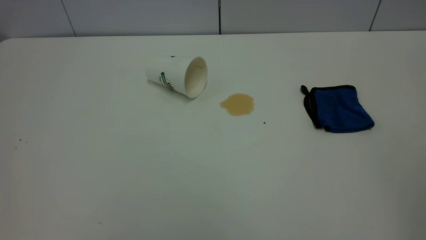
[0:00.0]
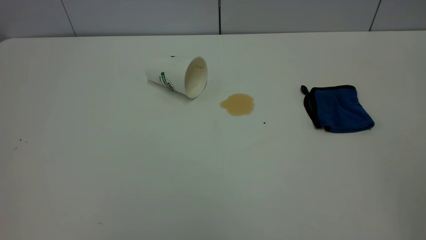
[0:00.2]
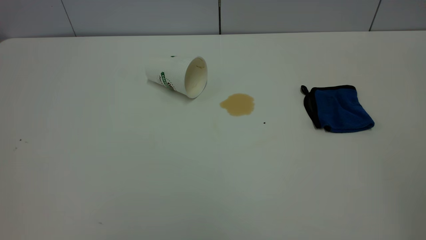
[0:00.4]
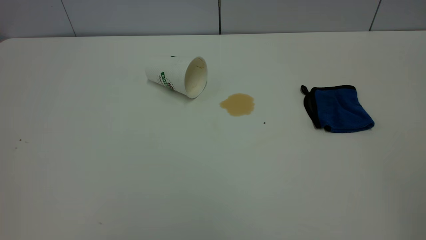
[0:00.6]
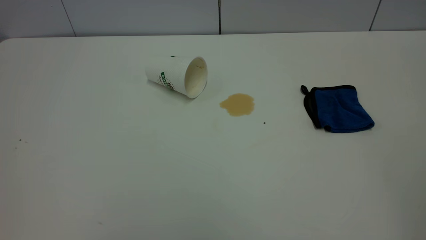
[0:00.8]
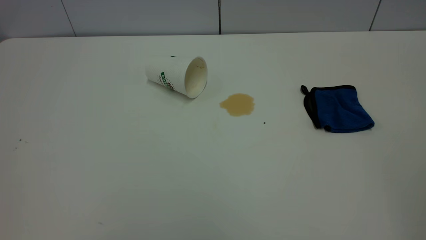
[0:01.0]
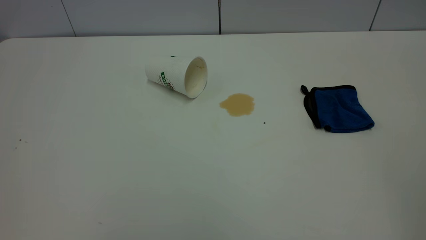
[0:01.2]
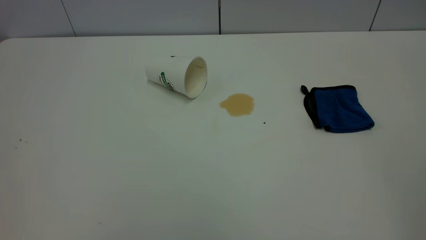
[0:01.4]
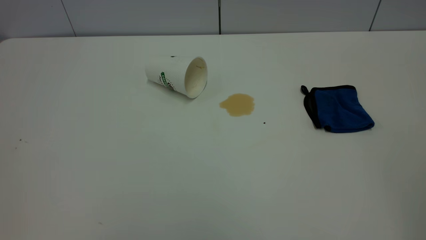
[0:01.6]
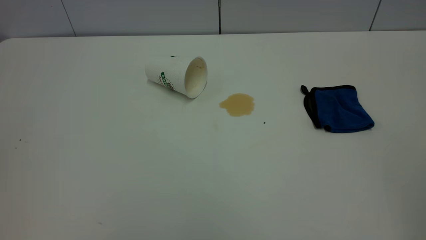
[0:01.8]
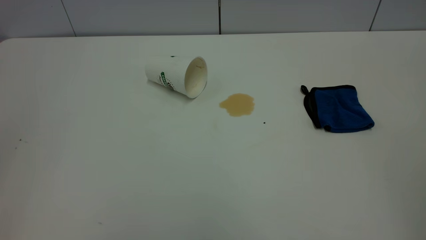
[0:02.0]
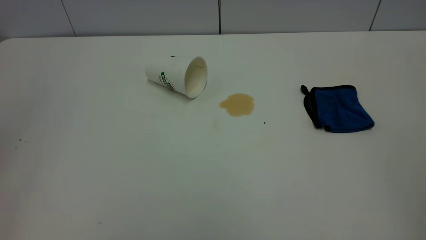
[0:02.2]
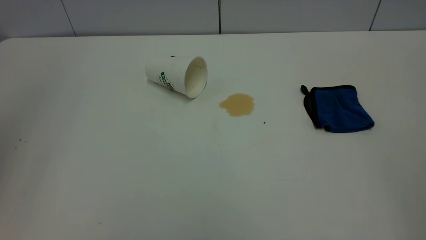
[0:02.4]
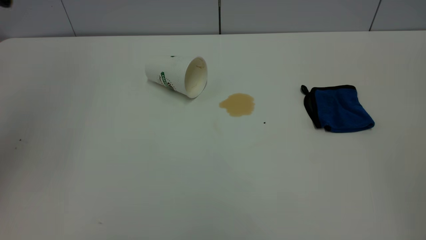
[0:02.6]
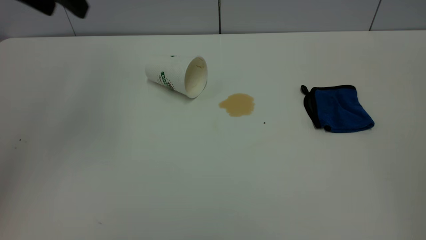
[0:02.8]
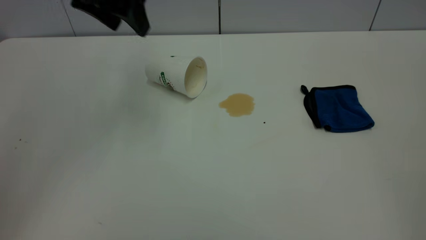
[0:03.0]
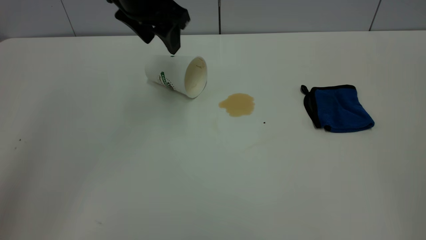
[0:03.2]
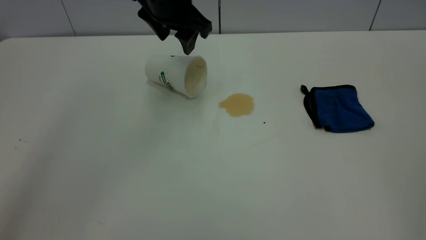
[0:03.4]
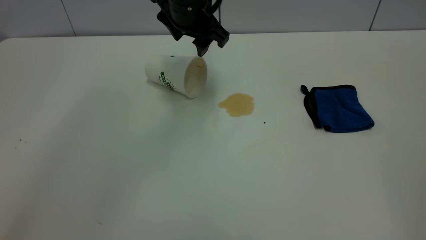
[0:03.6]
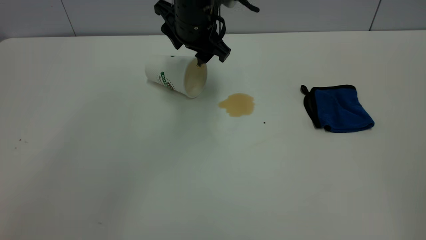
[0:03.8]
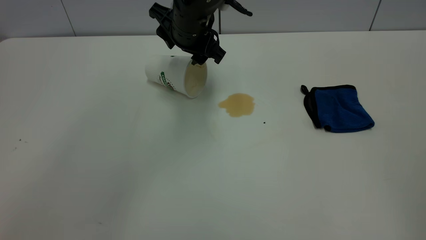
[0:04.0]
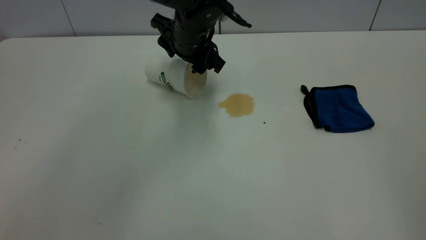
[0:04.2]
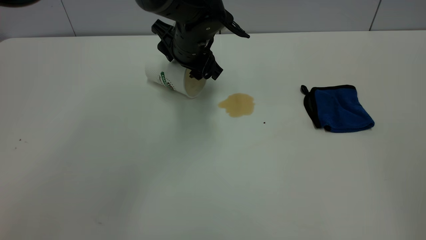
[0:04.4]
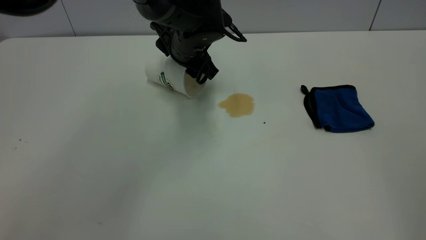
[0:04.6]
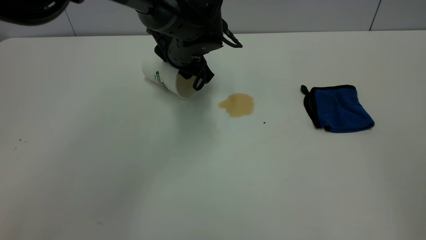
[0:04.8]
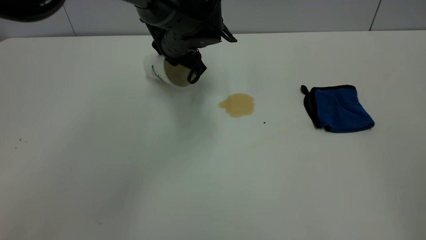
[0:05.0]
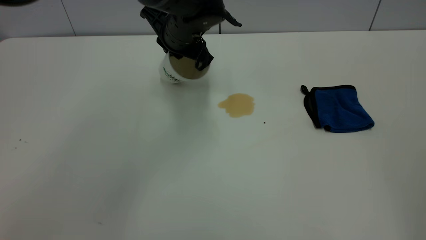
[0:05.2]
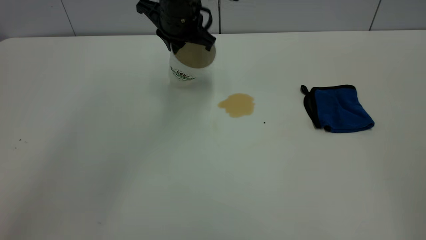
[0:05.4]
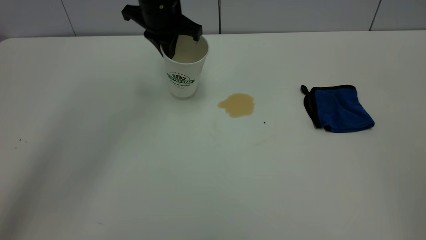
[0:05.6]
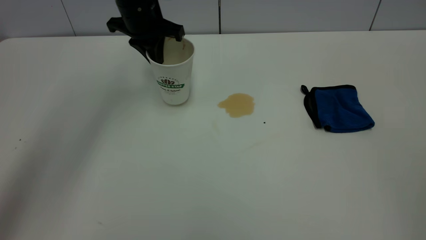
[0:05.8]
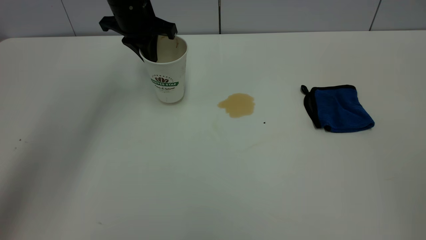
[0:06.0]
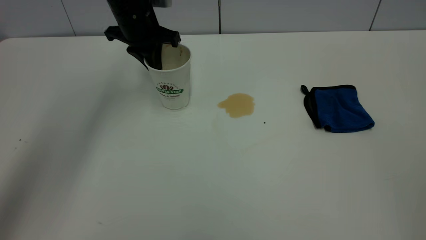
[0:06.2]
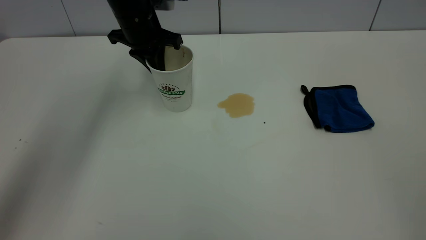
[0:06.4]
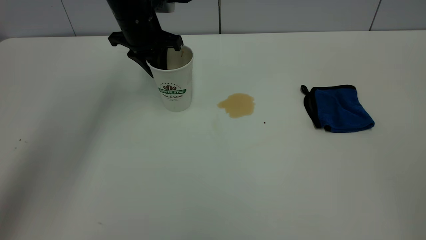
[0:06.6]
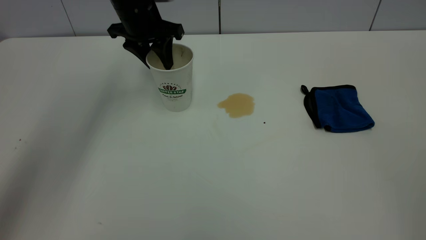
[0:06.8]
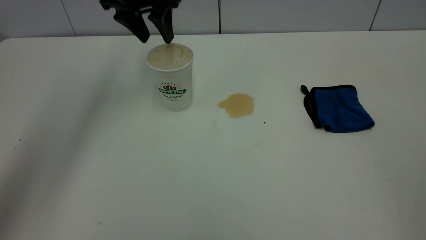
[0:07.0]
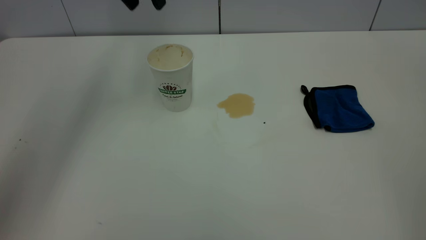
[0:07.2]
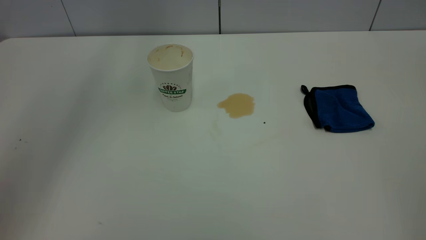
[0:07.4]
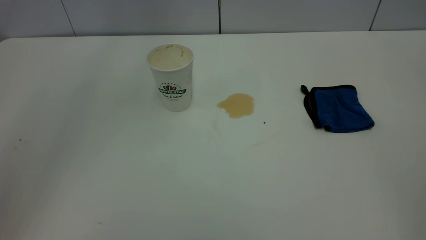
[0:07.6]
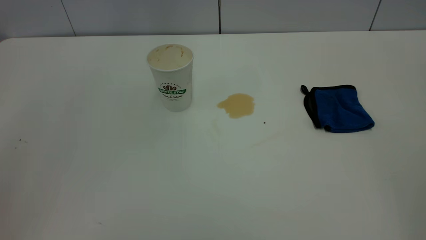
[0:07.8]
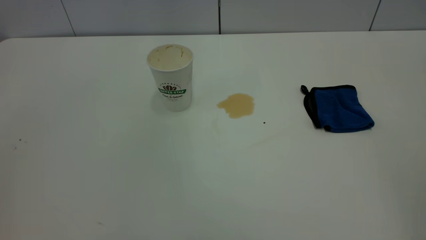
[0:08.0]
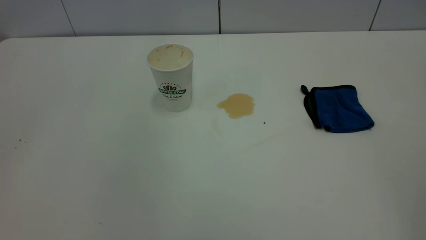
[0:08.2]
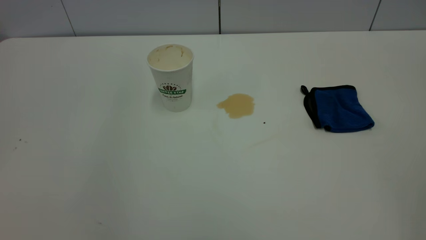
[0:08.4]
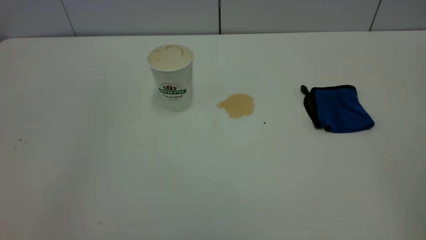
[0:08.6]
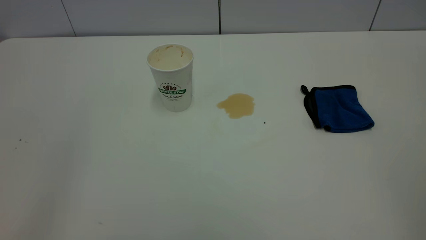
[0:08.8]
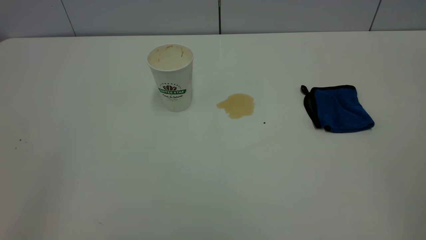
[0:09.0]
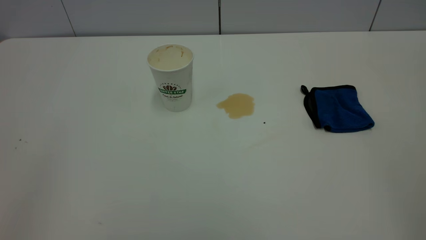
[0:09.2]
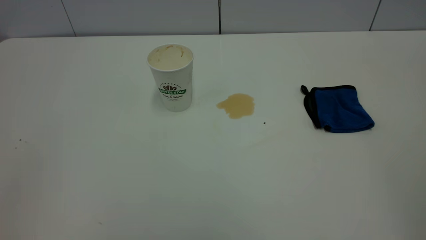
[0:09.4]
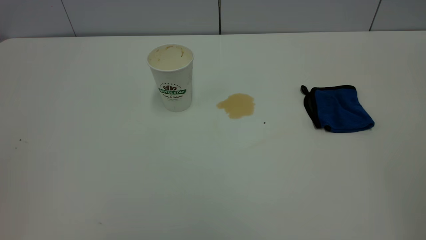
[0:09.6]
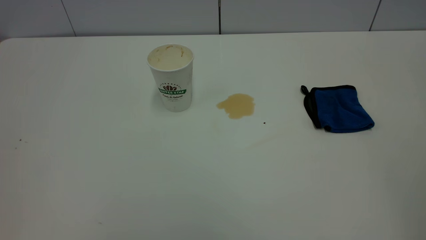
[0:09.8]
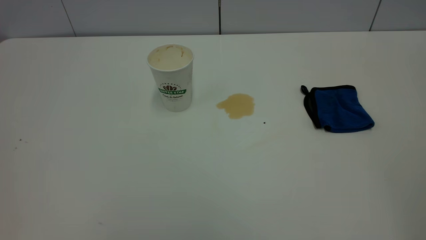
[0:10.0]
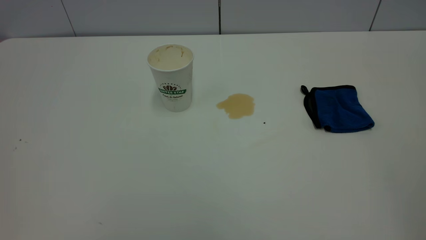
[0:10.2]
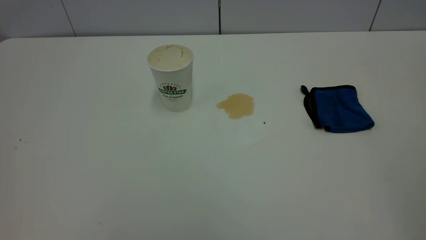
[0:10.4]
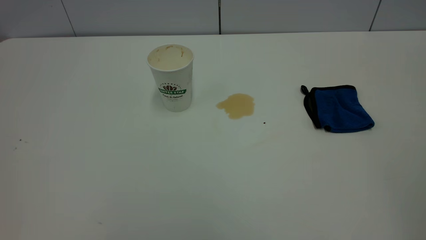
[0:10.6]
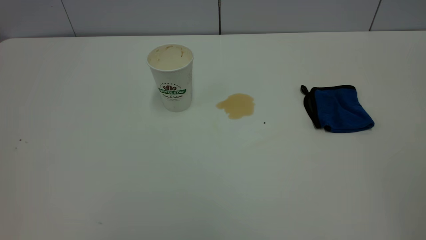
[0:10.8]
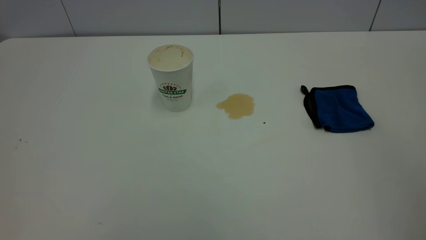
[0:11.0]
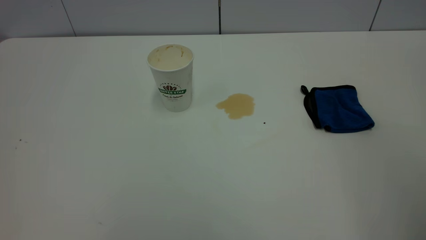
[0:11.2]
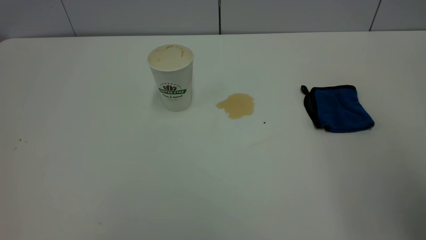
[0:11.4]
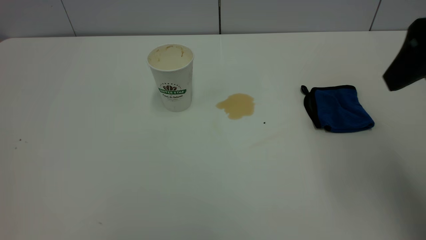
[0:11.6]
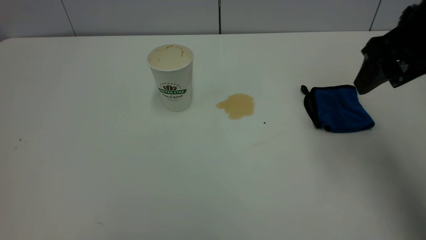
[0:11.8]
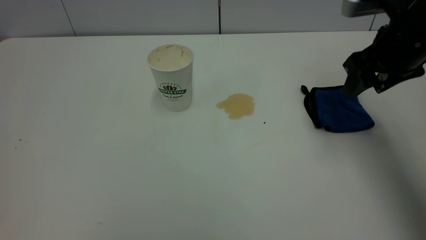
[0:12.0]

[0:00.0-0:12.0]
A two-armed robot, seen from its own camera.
Task of the whole recording: the left gripper pick up the fallen cup and place it upright, the right gripper grasp the blue rag and wipe the tea stain on the table, the right gripper put the blue rag back in its original position.
Step, 0:00.0 to 0:06.8: Stand the paper cup upright.
0:00.0 to 0:01.6: The two grippers keep their place.
0:01.6 to 0:03.0: The left gripper is displaced forward by about 40 cm.
0:03.0 to 0:04.4: The left gripper goes some 20 cm downward and to the right.
0:04.4 to 0:06.0: The left gripper moves to the left, forward and upward, about 15 cm, and closes its fingers.
0:06.0 to 0:07.6: The left gripper goes some 30 cm upward, and opens its fingers.
0:10.4 to 0:12.0: The right gripper goes about 40 cm forward and downward.

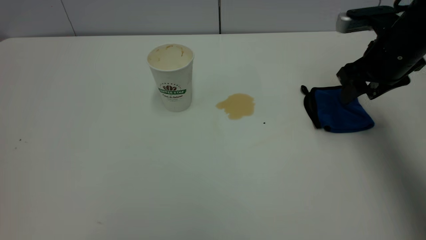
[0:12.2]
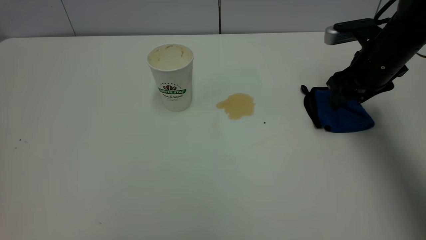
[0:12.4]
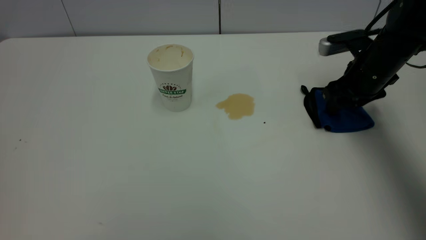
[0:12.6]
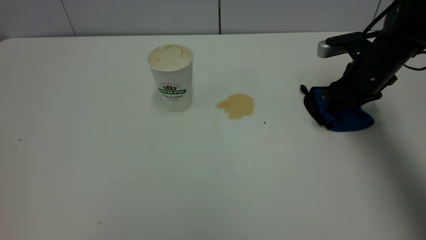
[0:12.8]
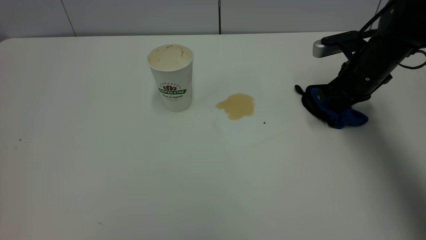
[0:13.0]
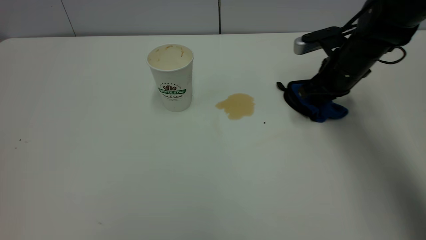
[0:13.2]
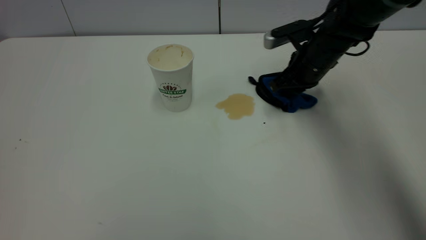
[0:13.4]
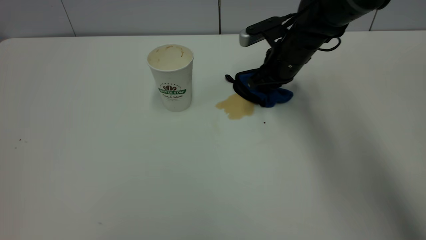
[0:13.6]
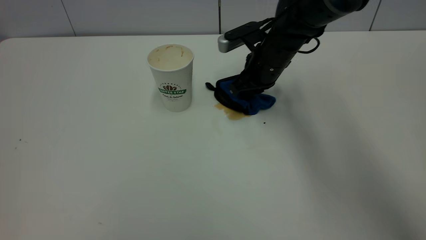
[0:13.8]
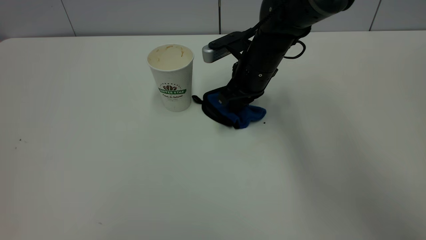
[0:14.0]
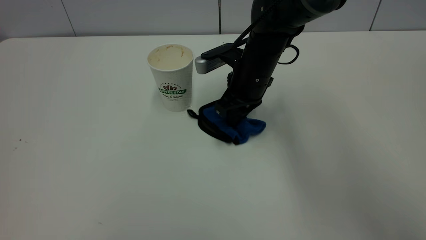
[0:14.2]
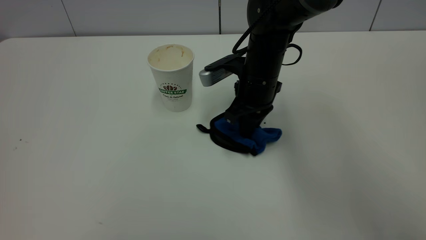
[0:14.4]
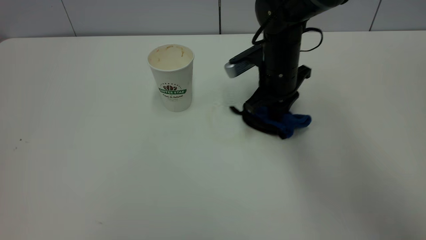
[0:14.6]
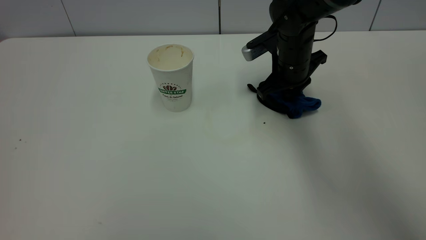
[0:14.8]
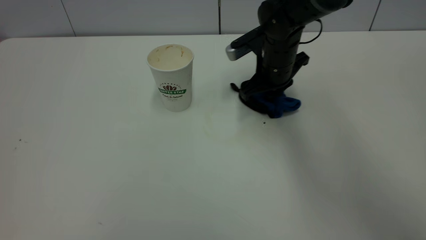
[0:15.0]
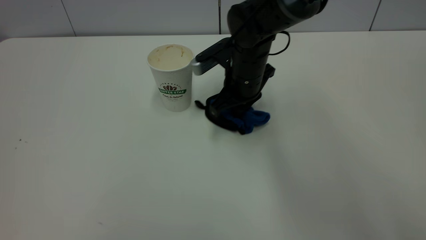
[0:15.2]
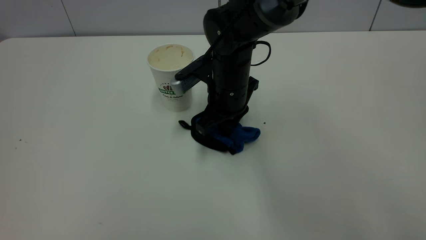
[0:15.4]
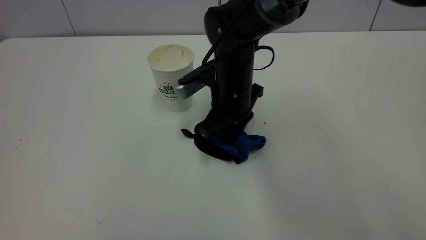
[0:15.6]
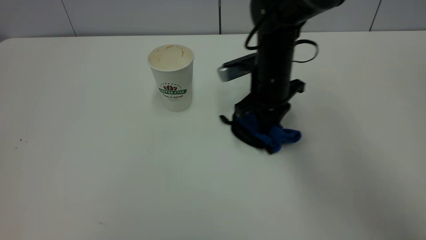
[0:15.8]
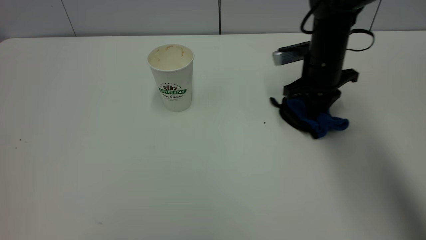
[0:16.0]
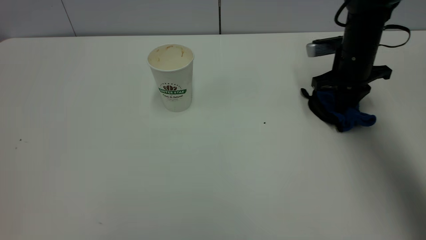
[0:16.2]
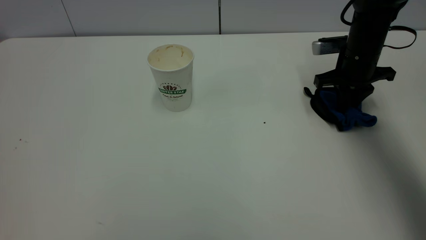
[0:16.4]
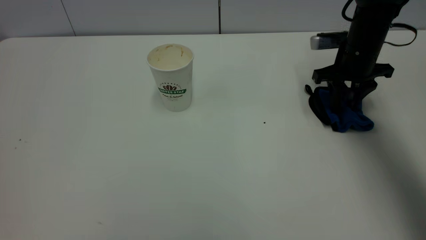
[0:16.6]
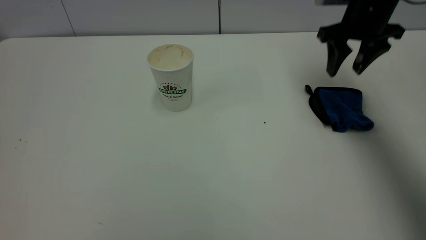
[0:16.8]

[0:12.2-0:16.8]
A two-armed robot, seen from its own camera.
Task of the whole recording: the left gripper pick up the fallen cup and place it upright, the right gripper grasp the blue rag and wipe the tea stain on the table, the right gripper put the blue rag back in its original position.
Step, 0:12.2 to 0:16.6: Wipe the stains off the table with a rag.
0:12.2 to 0:13.8: The right gripper heads to the left and forward, covering about 20 cm, and closes its fingers.
0:13.8 to 0:15.2: The right gripper moves to the left, about 5 cm.
0:15.2 to 0:16.8: The right gripper shifts approximately 25 cm to the right and upward, and opens up.
